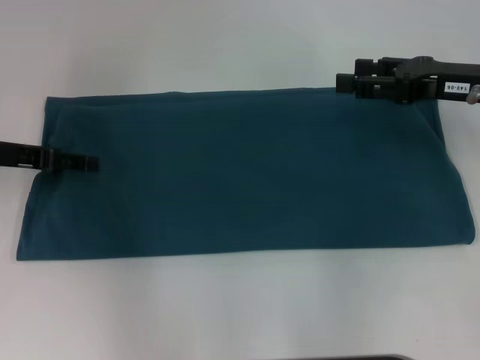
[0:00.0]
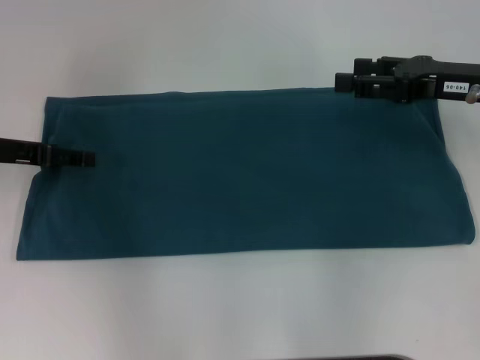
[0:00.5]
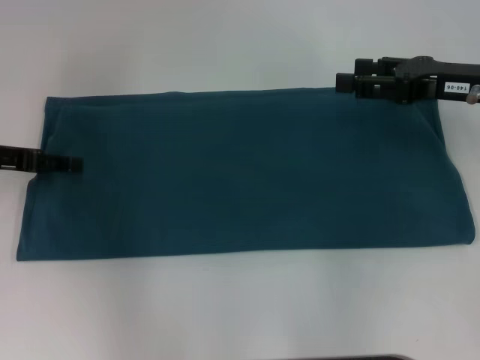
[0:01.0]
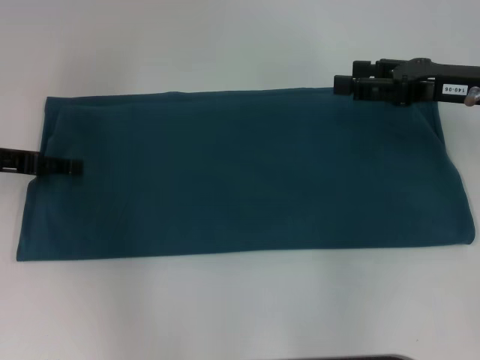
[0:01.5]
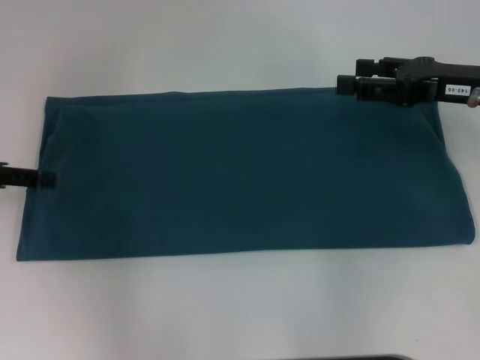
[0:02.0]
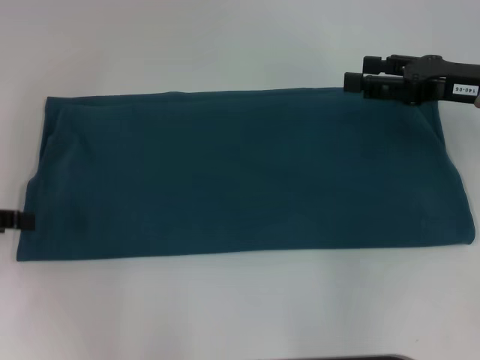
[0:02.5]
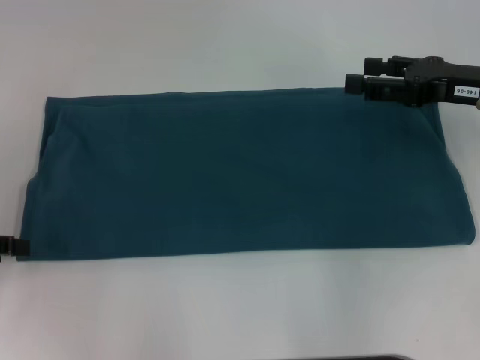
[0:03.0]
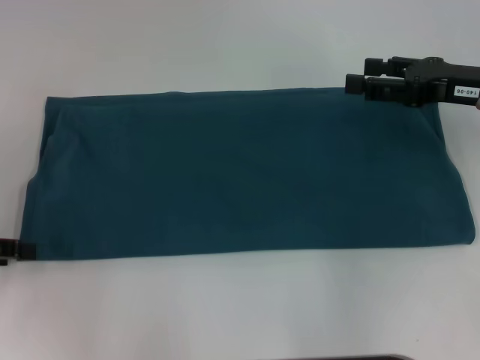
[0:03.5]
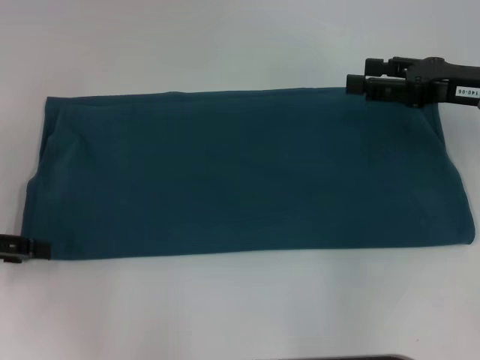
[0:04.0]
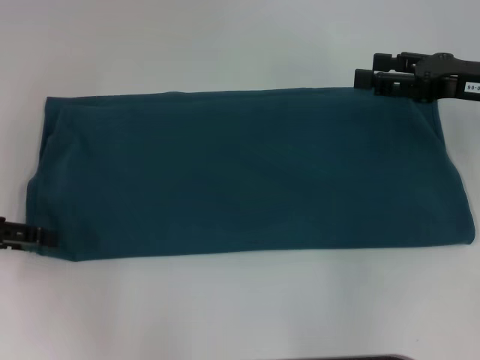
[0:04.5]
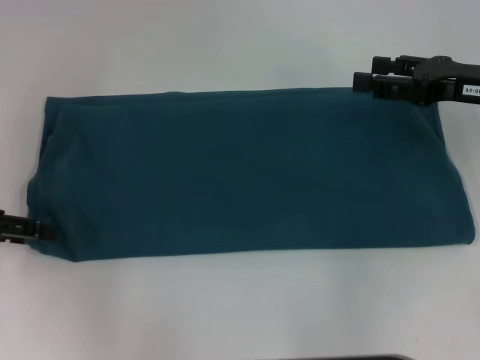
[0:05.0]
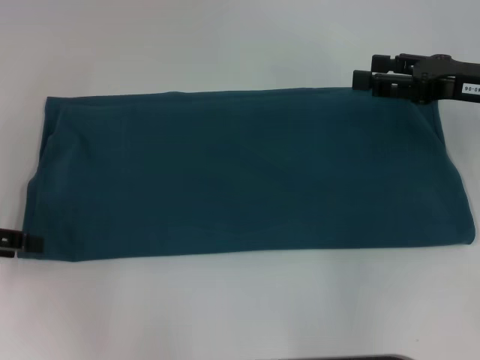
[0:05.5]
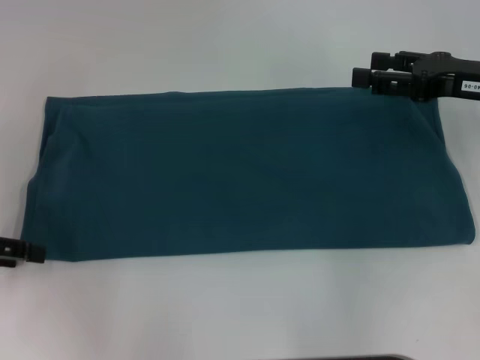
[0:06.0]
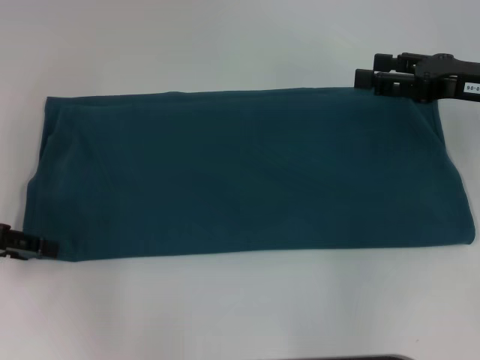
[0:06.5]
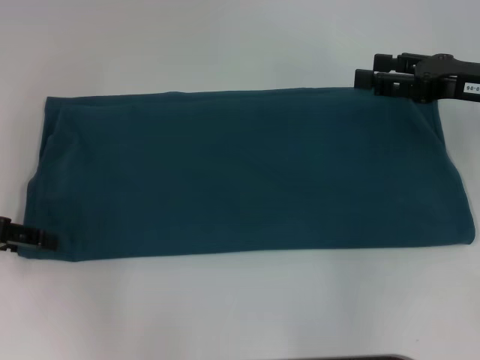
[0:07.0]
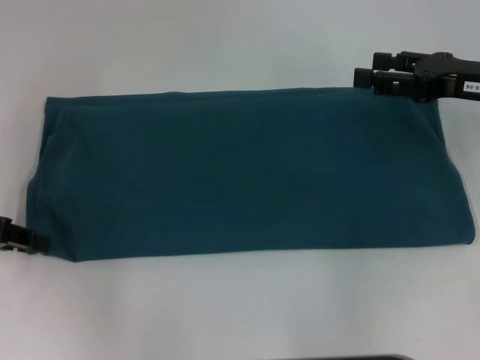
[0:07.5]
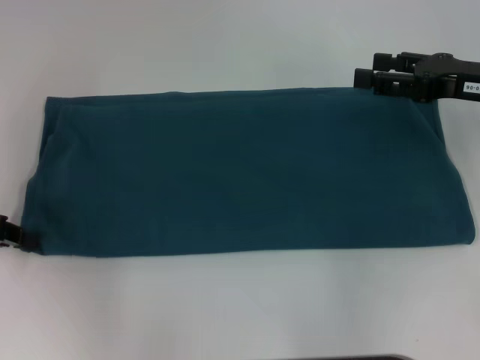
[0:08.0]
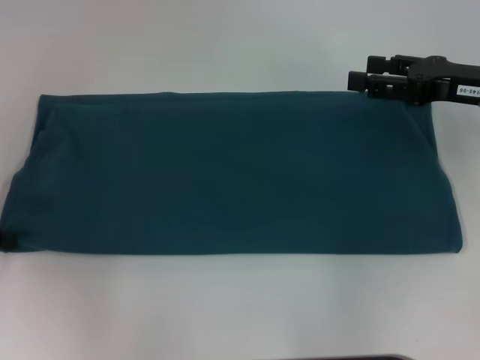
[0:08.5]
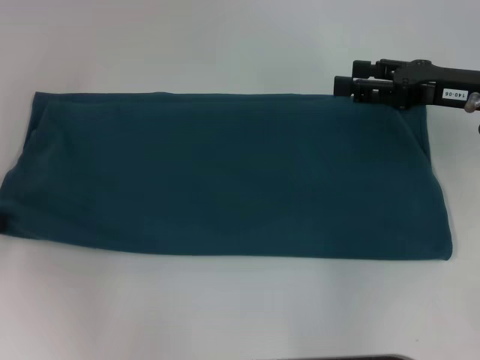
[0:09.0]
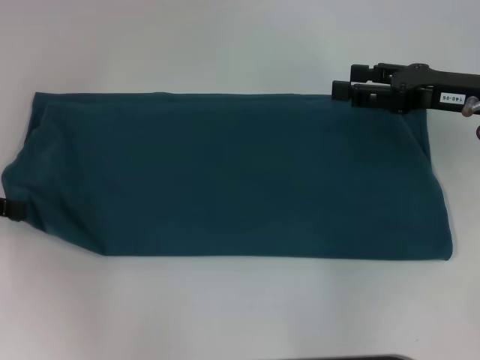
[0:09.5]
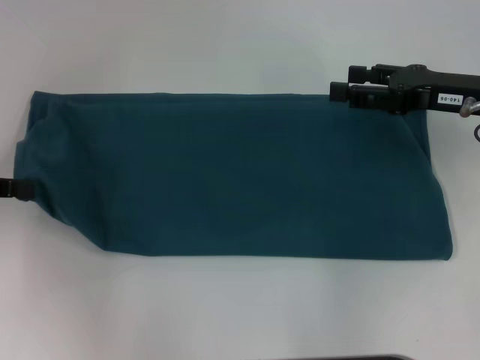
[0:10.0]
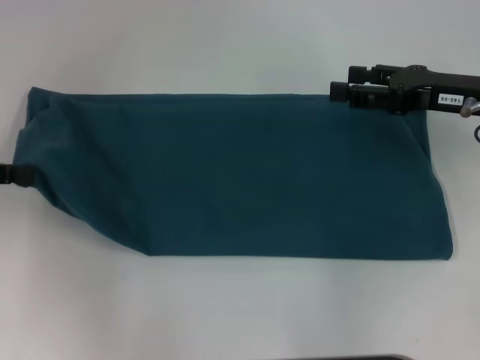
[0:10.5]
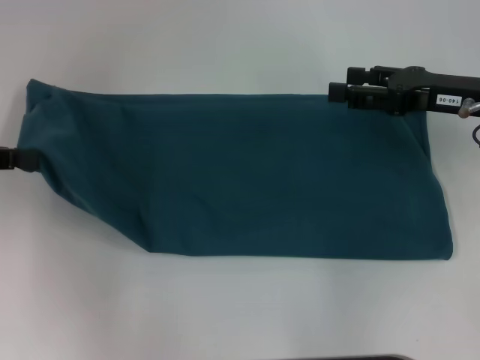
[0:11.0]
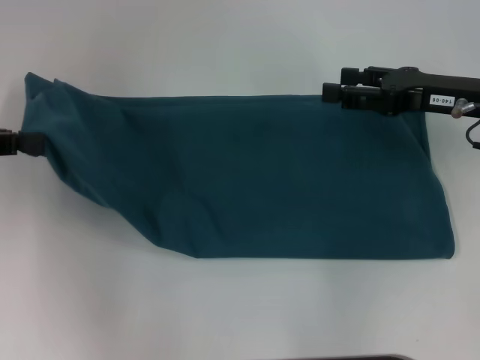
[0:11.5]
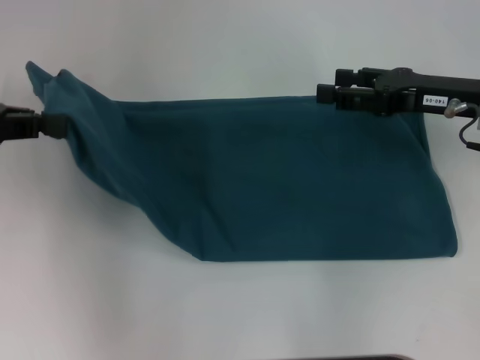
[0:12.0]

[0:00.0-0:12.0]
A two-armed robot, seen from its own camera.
0:00.0 to 0:02.0: The left gripper shifts by roughly 5 cm.
0:02.0 to 0:04.0: The left gripper moves roughly 5 cm.
0:04.0 to 0:06.0: The grippers make only small movements.
0:06.0 to 0:08.0: The left gripper closes its fingers.
0:08.0 to 0:10.0: The grippers stay close to where they were, moving slightly.
0:10.0 to 0:12.0: The left gripper moves upward, approximately 5 cm.

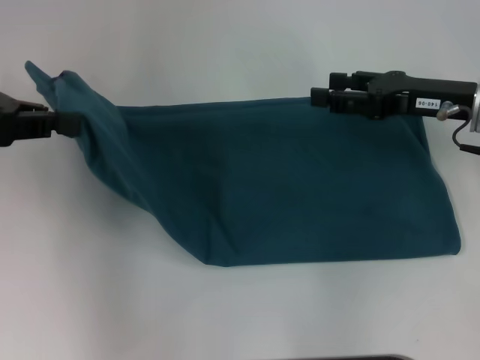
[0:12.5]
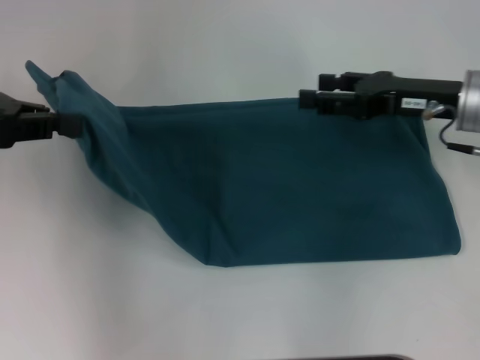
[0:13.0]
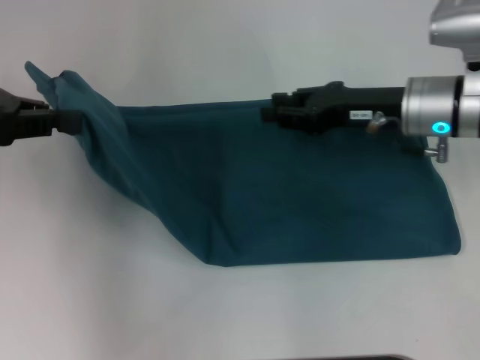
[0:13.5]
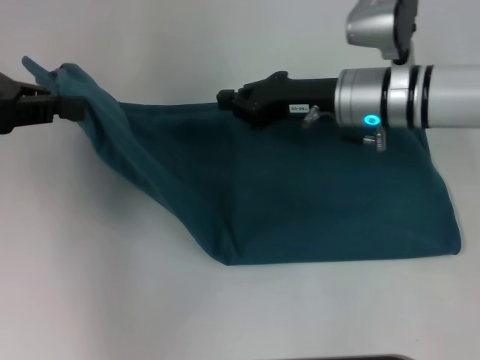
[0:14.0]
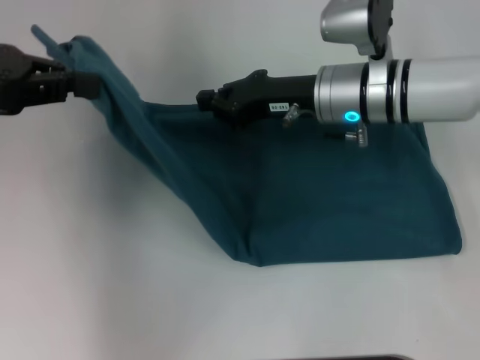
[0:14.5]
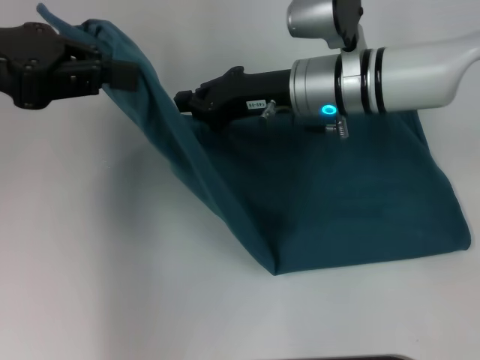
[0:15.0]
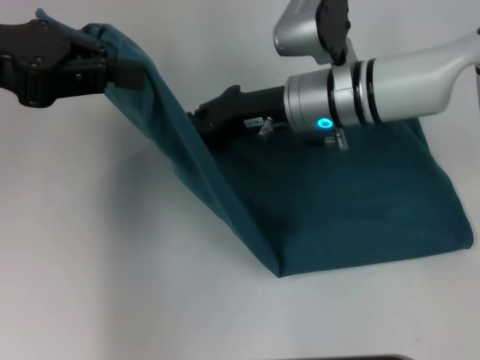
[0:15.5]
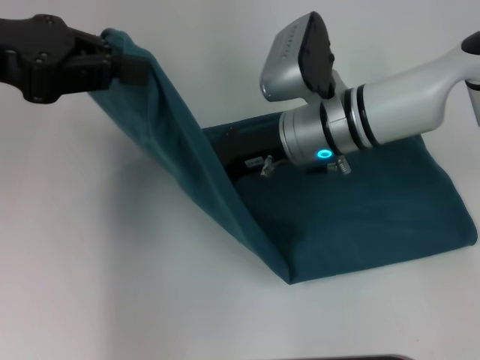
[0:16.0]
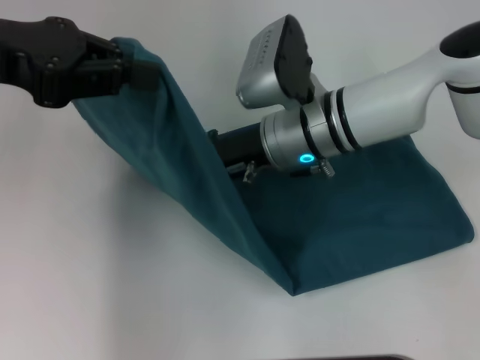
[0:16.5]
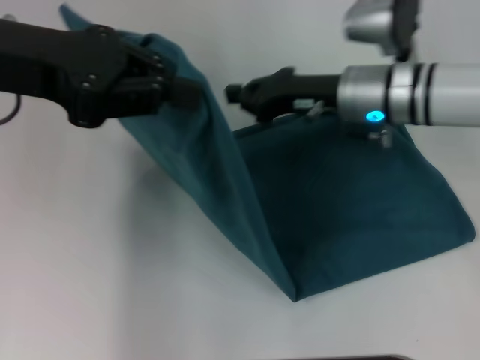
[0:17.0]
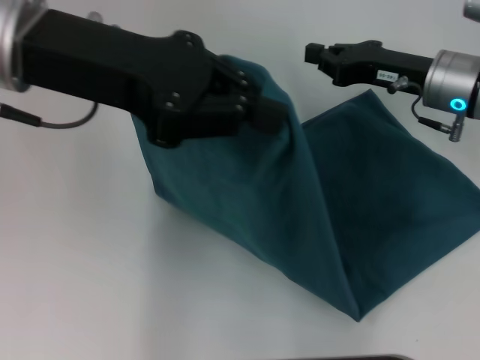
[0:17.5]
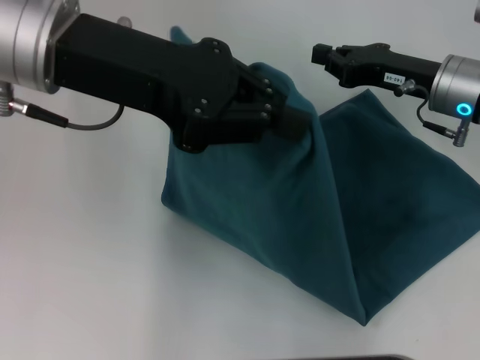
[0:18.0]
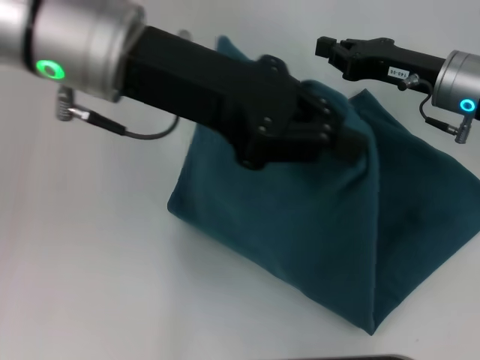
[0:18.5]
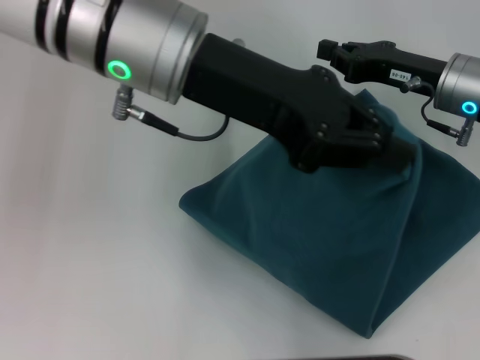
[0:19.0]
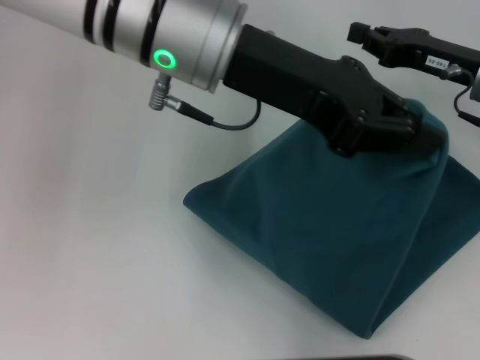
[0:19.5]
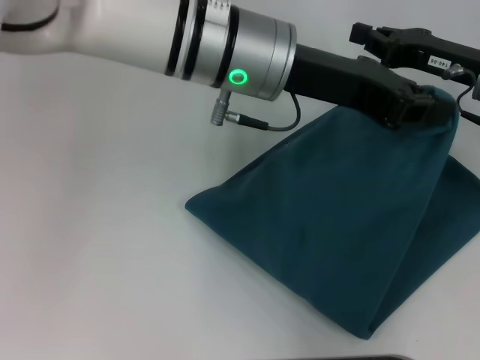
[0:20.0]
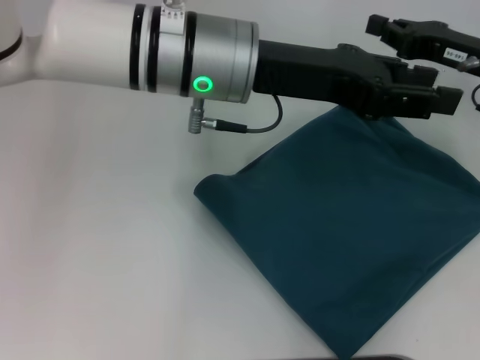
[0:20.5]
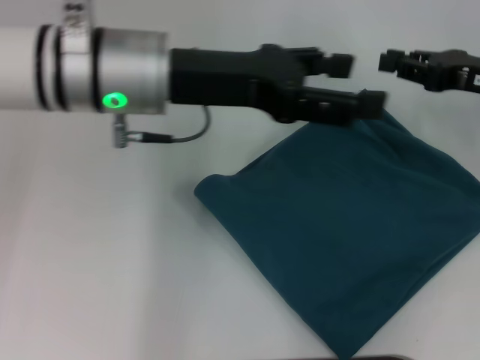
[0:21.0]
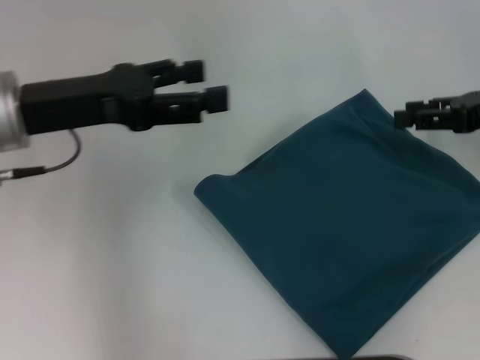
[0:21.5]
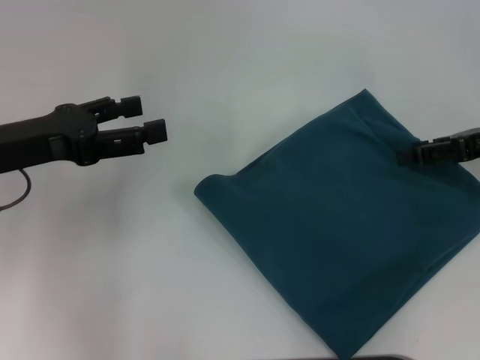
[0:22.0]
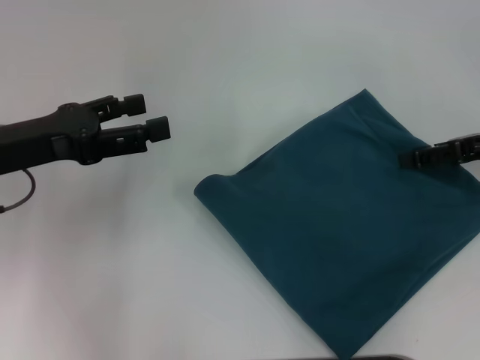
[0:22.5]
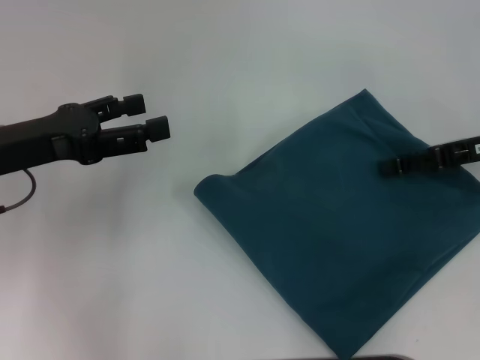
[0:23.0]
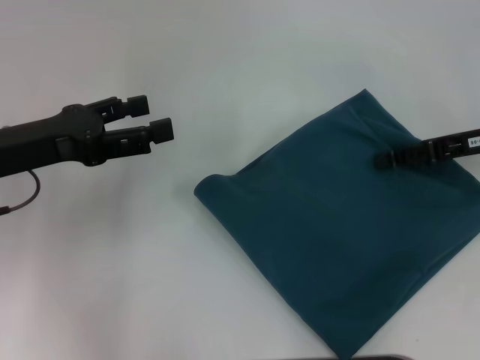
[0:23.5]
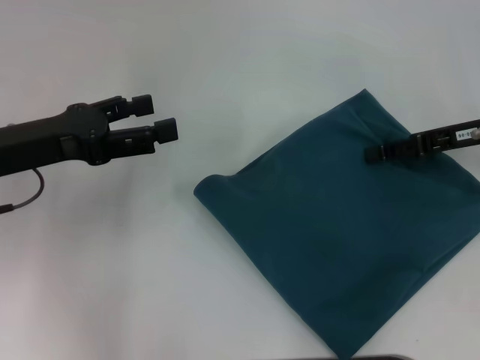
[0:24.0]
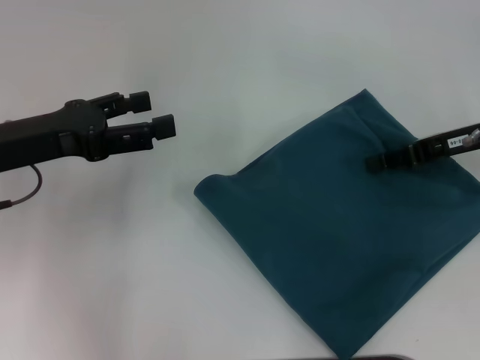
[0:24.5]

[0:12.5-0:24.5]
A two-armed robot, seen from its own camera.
Step, 0:12.5 to 0:16.5: Press the middle of the clothes with your right hand.
Step, 0:17.0 to 0:20.5: Fold the clothes to the left.
0:12.5 to 0:14.5: The right gripper travels to the left by about 15 cm, and closes up.
0:14.5 to 0:16.5: The right gripper shifts approximately 5 cm to the left.
0:16.5 to 0:18.5: The two grippers go about 15 cm to the right.
0:18.5 to 0:20.5: The left gripper shifts approximately 10 cm to the right and downward. The right gripper moves about 5 cm.
0:20.5 to 0:22.5: The left gripper is displaced to the left by about 20 cm, and opens its fingers; the right gripper shifts roughly 5 cm to the right, and opens.
0:22.5 to 0:24.5: The grippers move only a little.

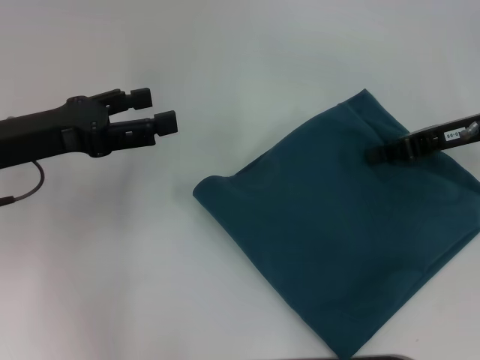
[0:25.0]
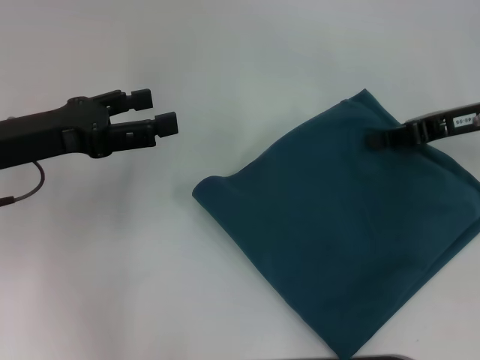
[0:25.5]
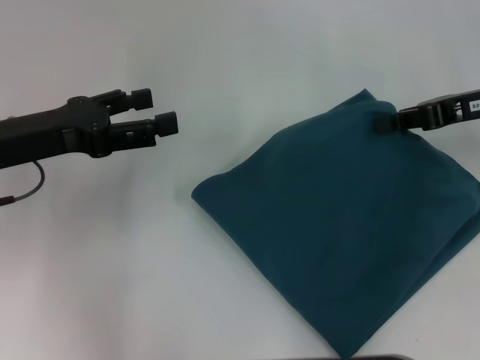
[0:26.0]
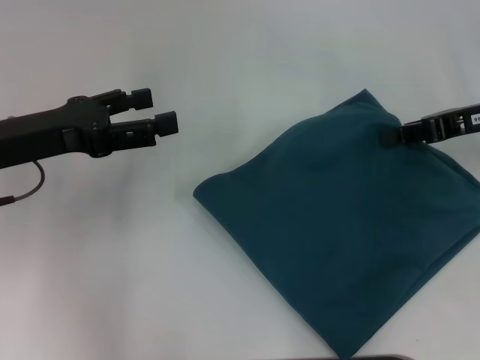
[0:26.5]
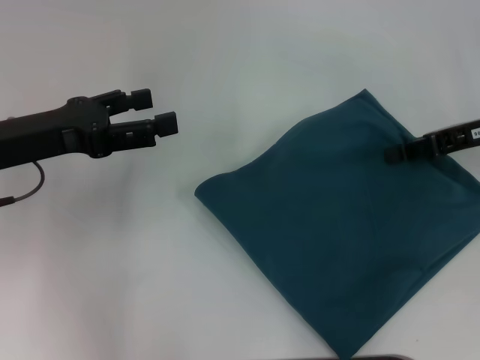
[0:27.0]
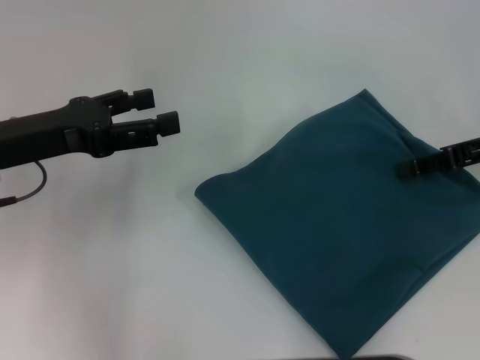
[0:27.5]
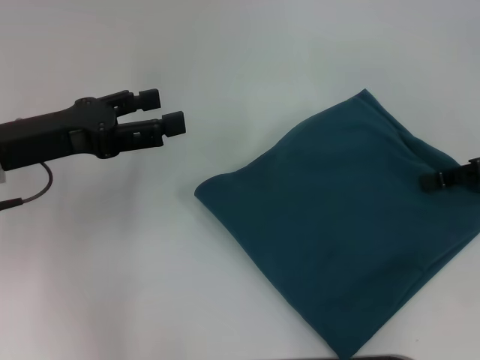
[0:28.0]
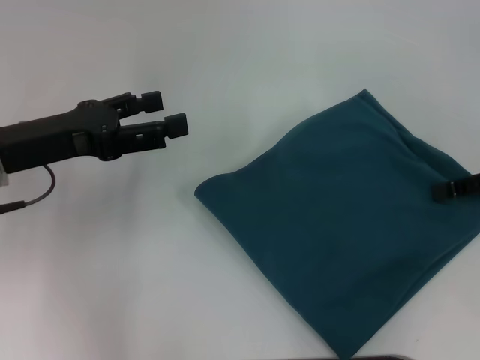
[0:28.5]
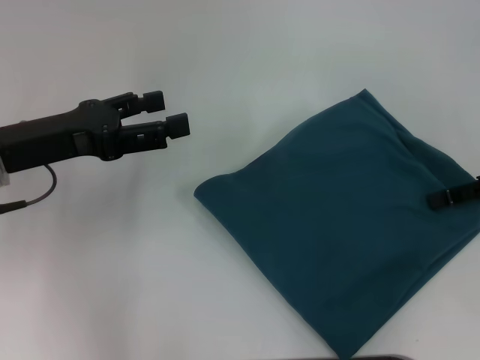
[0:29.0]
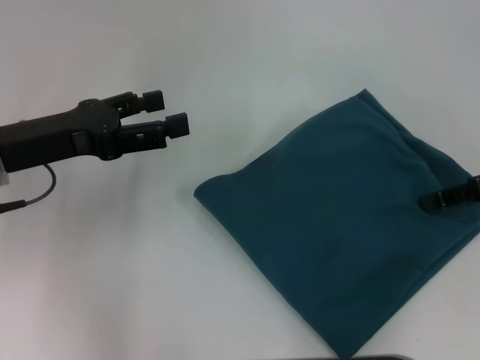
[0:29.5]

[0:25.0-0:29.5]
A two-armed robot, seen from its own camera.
0:25.0 to 0:27.0: There are only small adjustments of the grippers.
0:27.0 to 0:29.5: The right gripper opens up.
